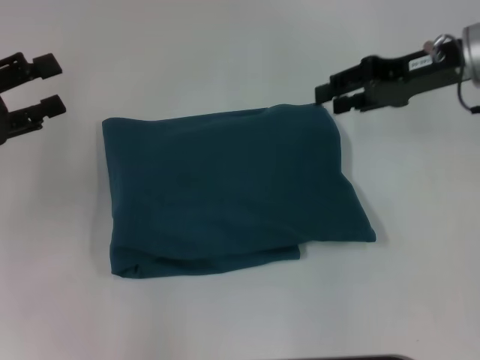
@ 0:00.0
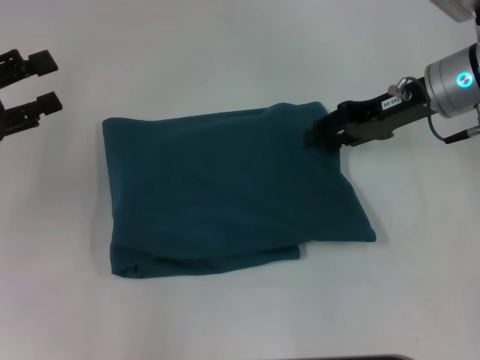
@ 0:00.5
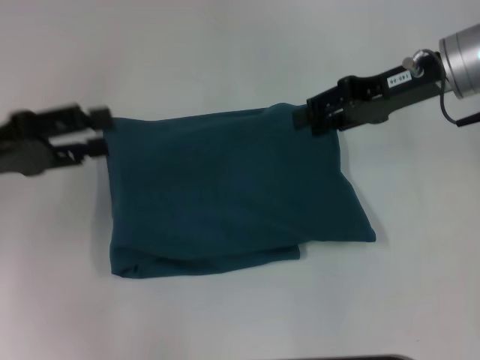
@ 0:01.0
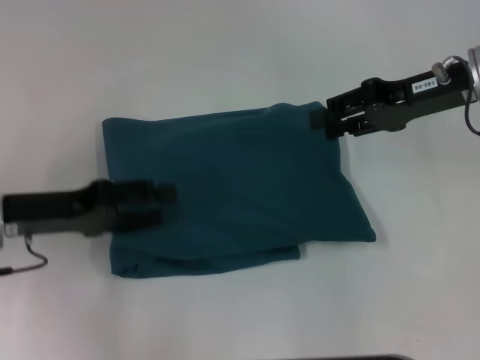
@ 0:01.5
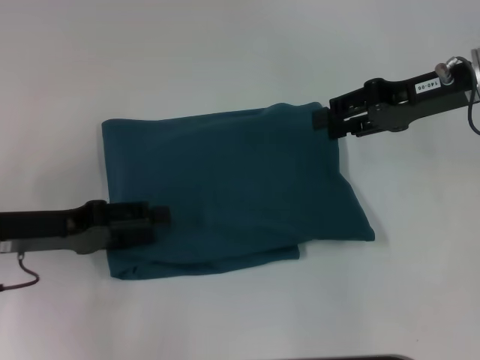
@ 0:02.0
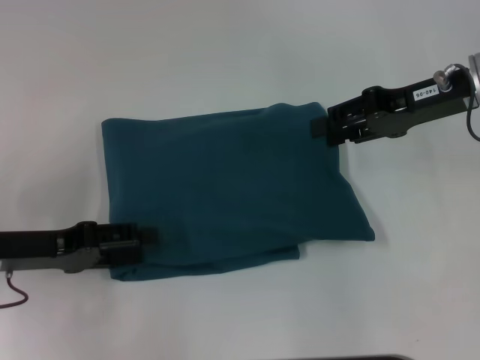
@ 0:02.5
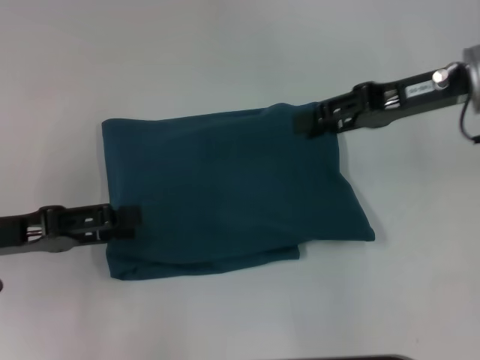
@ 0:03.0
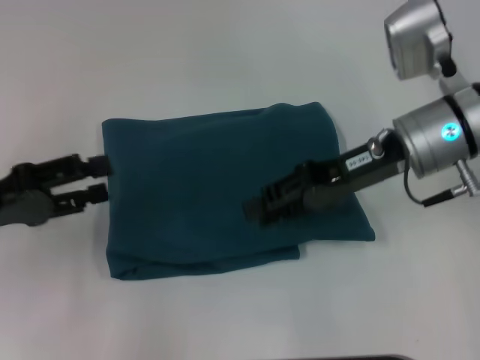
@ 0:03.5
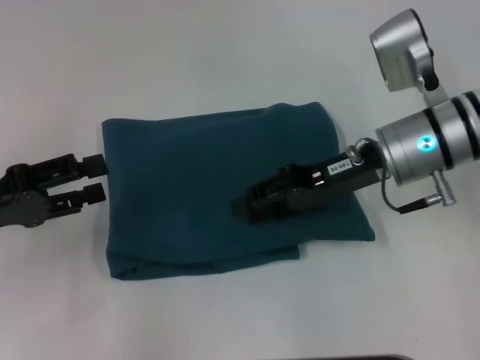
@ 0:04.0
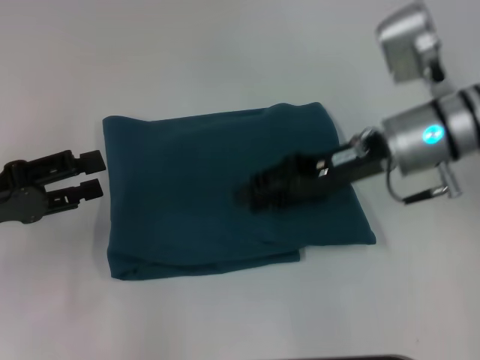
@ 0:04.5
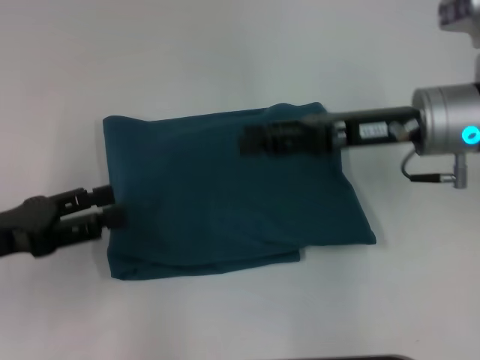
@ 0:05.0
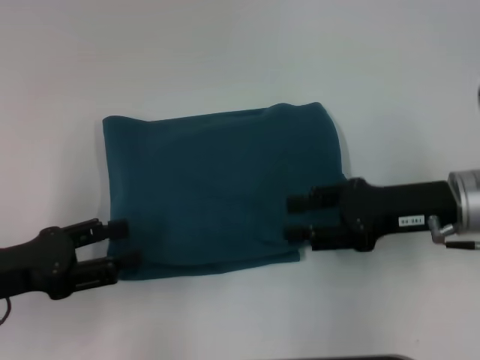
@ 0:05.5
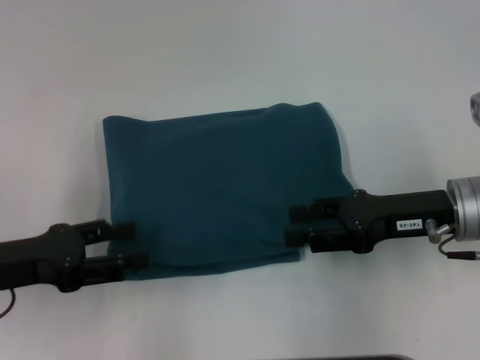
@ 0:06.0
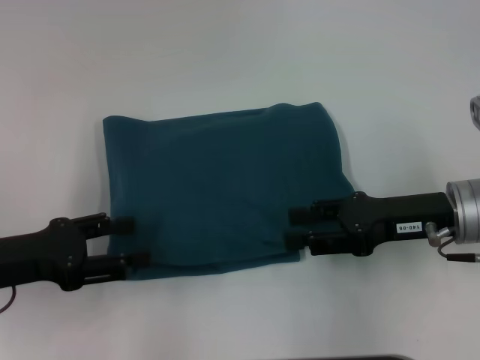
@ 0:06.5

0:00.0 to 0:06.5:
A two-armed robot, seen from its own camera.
0:00.0 to 0:02.0: The left gripper shifts some 10 cm to the right and downward.
0:02.0 to 0:04.5: The left gripper moves some 5 cm. Meanwhile the right gripper goes approximately 5 cm to the left.
0:04.5 to 0:06.5: The right gripper moves backward and to the right, some 10 cm.

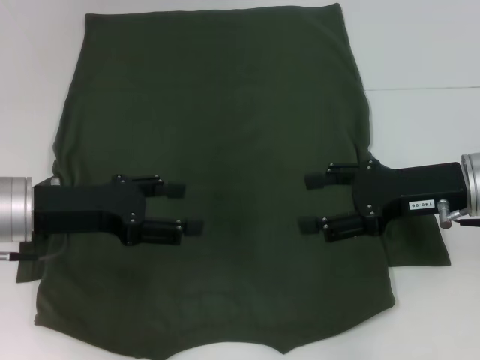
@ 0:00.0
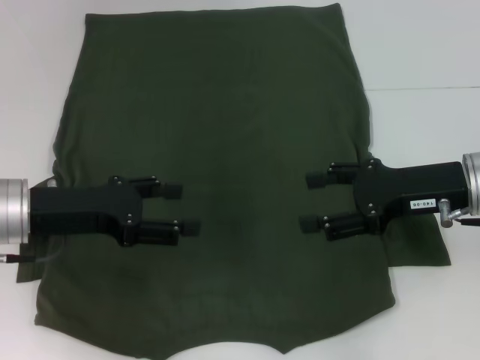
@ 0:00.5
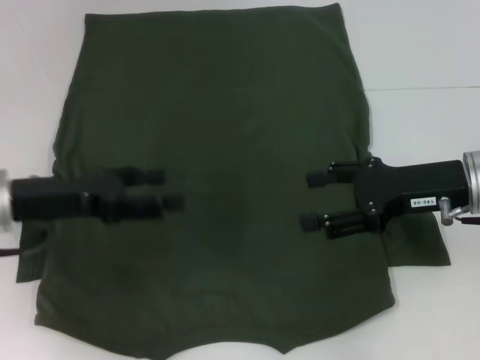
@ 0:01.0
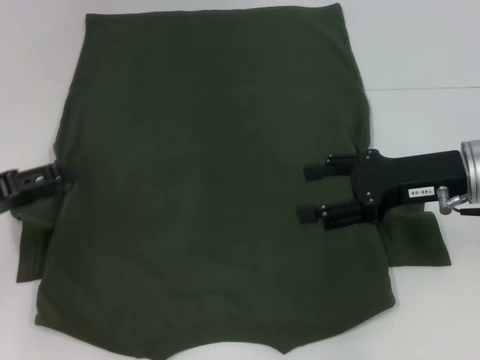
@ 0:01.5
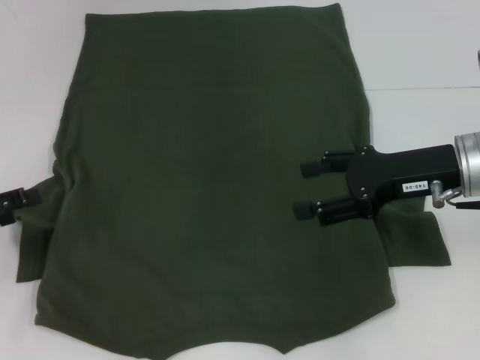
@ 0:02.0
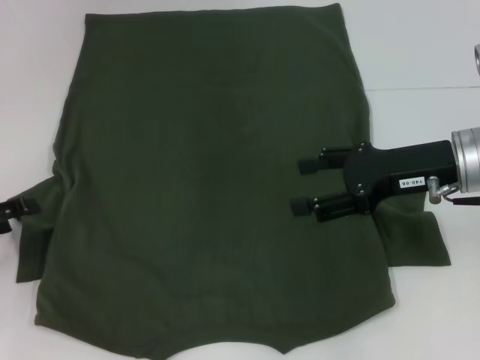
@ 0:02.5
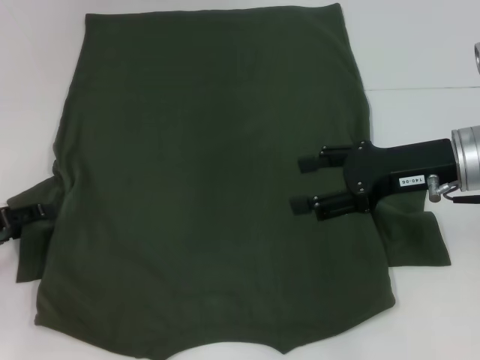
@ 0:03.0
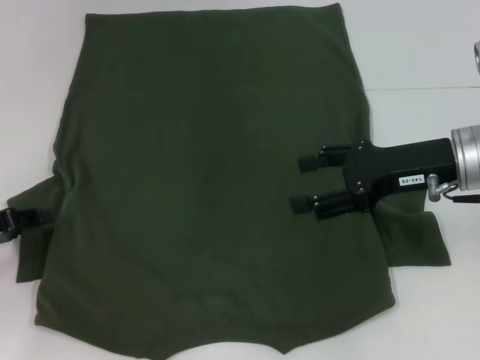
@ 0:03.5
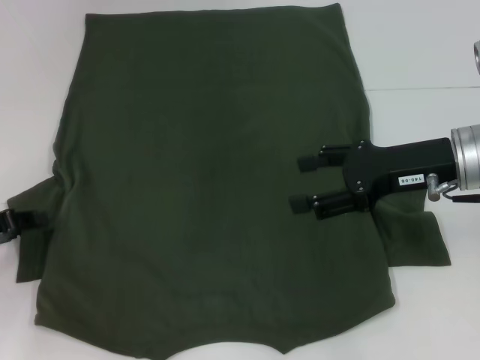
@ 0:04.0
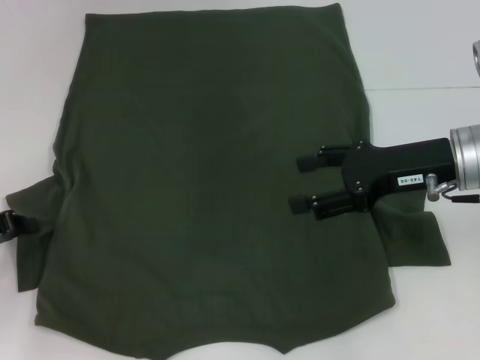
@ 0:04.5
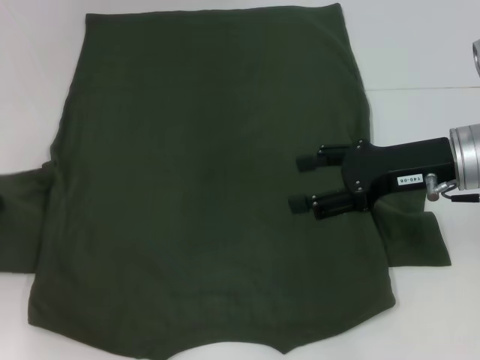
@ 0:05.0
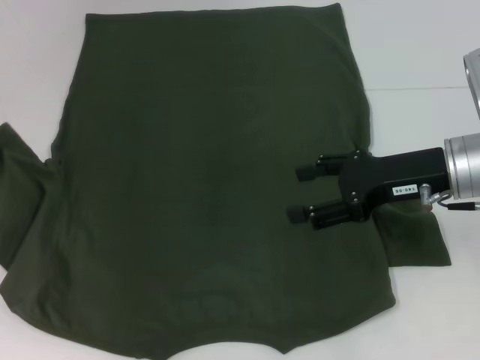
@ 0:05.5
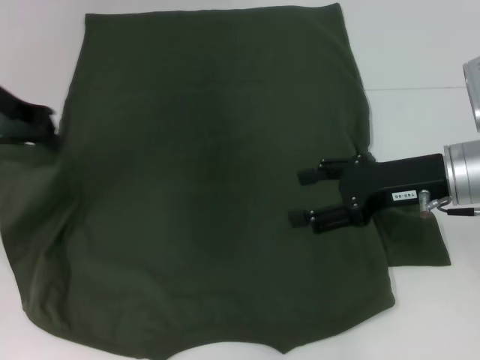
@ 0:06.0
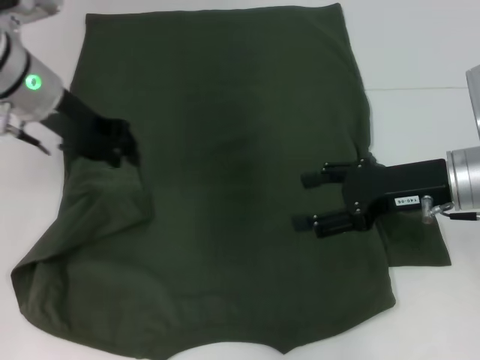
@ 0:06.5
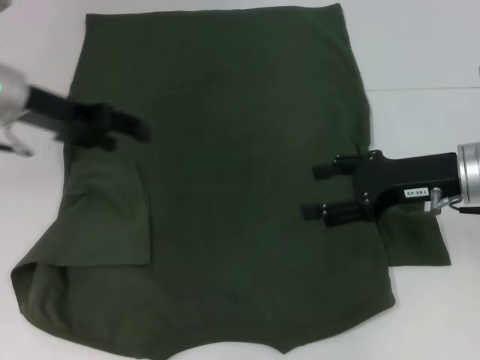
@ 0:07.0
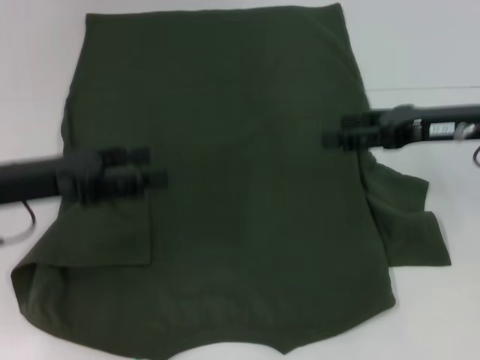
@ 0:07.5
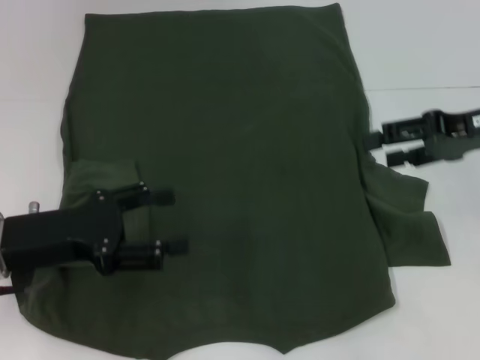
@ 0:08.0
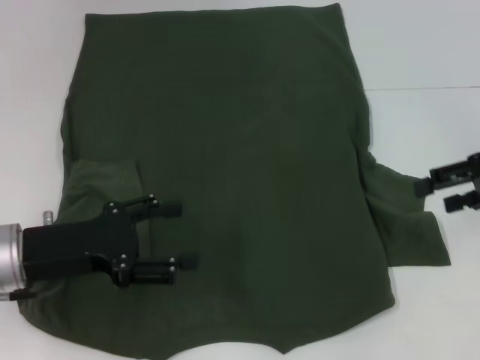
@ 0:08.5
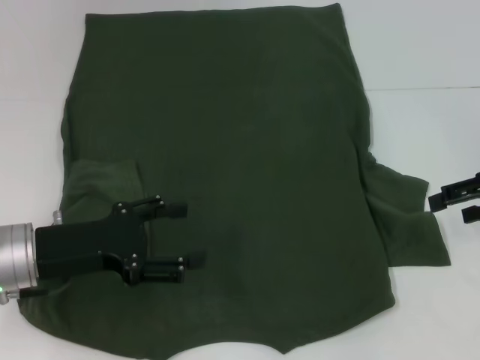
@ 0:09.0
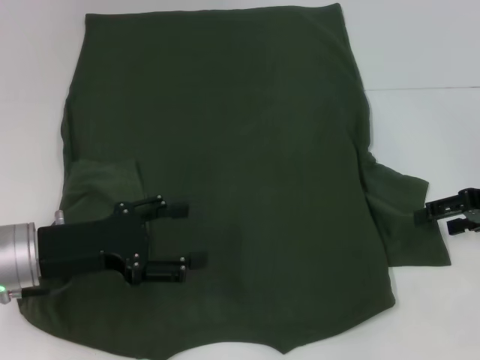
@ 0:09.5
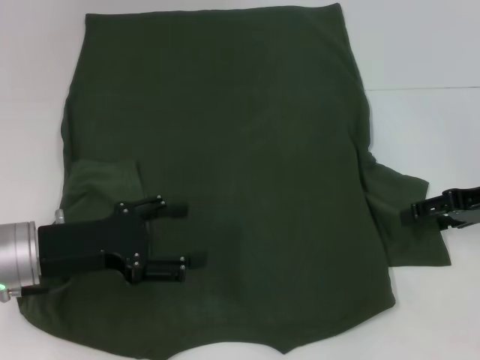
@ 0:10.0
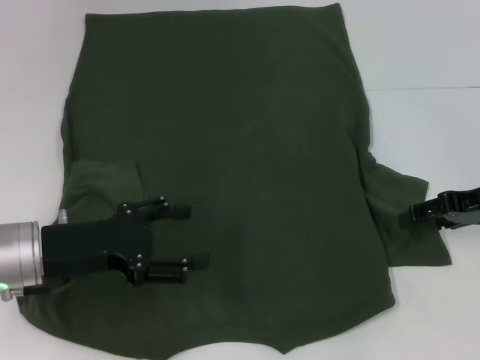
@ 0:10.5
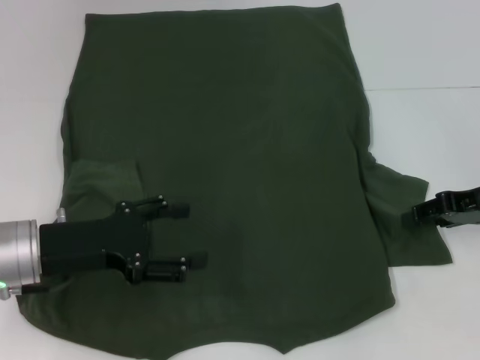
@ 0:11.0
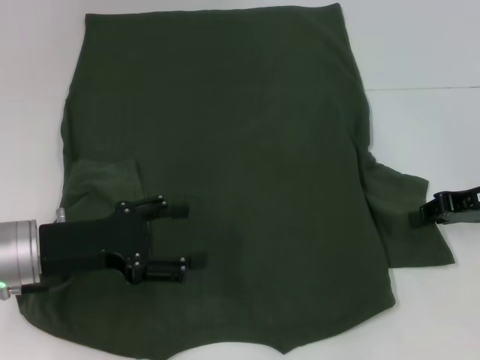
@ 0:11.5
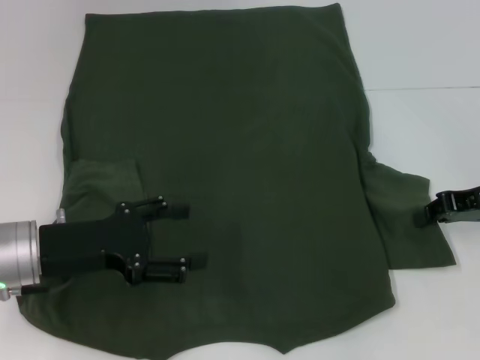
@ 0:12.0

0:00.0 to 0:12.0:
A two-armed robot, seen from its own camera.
Step, 0:00.0 to 0:06.5: Fold the bottom left sleeve with your left hand.
0:00.0 to 0:02.0: The left gripper moves to the left, approximately 15 cm.
0:02.0 to 0:04.0: The left gripper closes.
0:04.0 to 0:06.0: The left gripper heads upward, forward and to the right, covering about 20 cm, and closes its fingers.
0:06.0 to 0:08.0: The left gripper shifts approximately 20 cm backward and downward, and opens, while the right gripper is displaced to the right and upward by about 10 cm.
0:08.0 to 0:10.0: The right gripper shifts roughly 5 cm downward.
0:10.0 to 0:12.0: The right gripper closes its fingers.

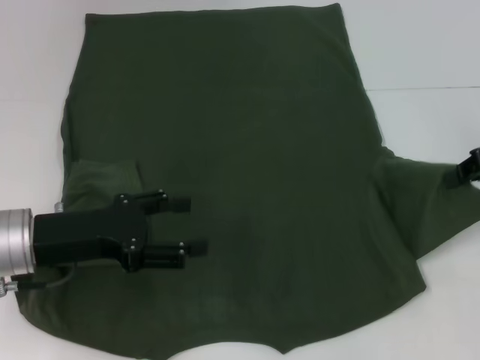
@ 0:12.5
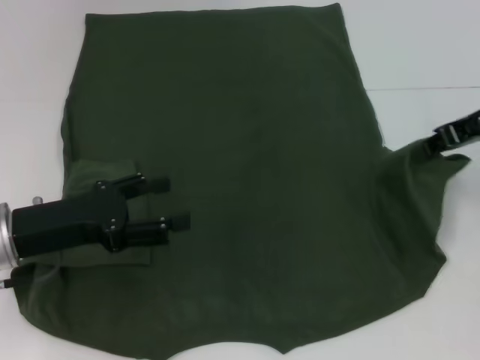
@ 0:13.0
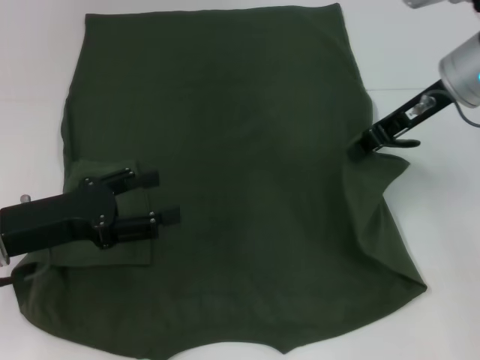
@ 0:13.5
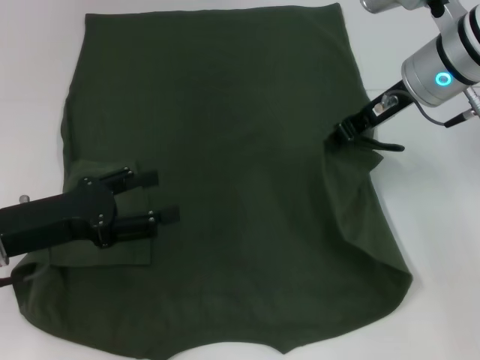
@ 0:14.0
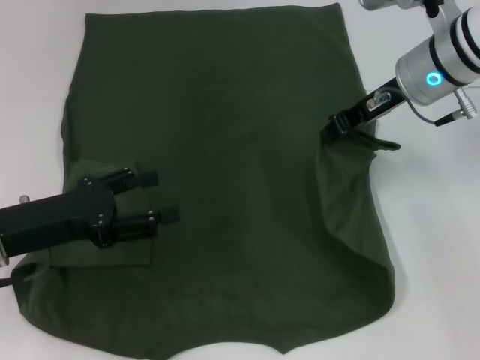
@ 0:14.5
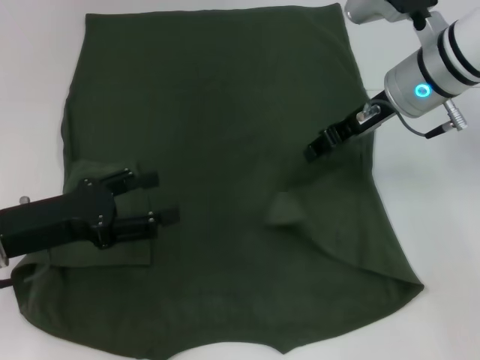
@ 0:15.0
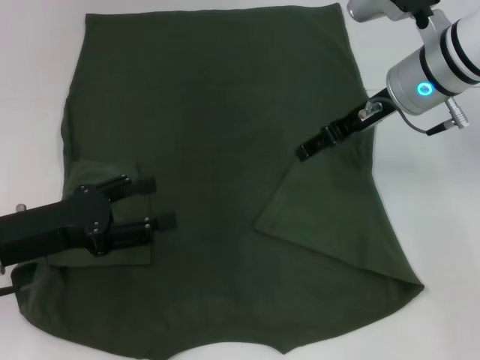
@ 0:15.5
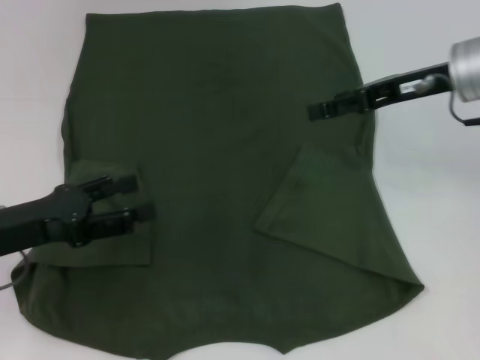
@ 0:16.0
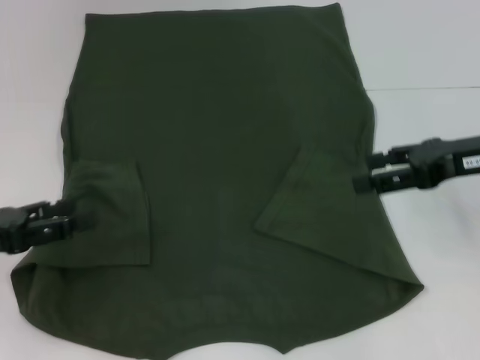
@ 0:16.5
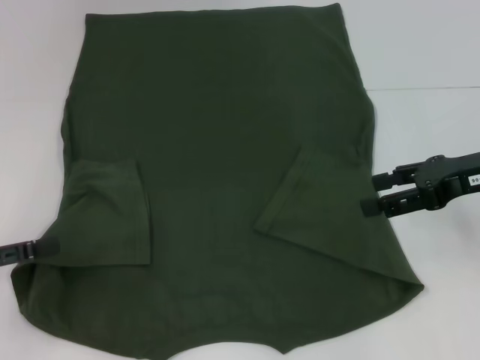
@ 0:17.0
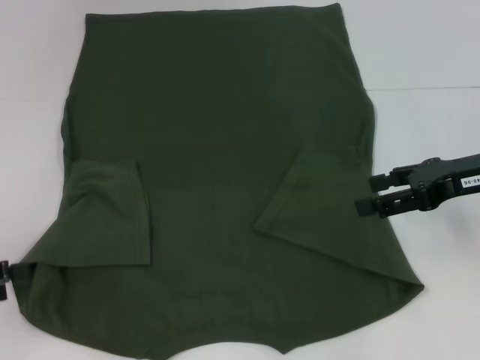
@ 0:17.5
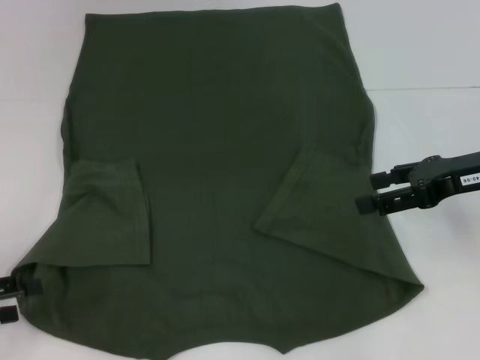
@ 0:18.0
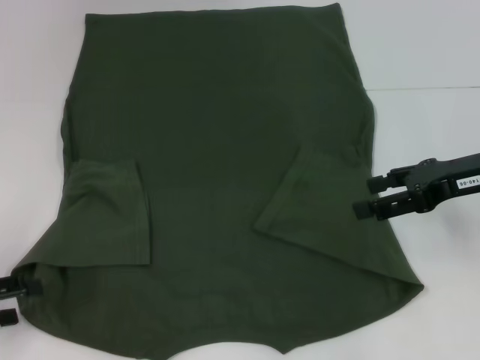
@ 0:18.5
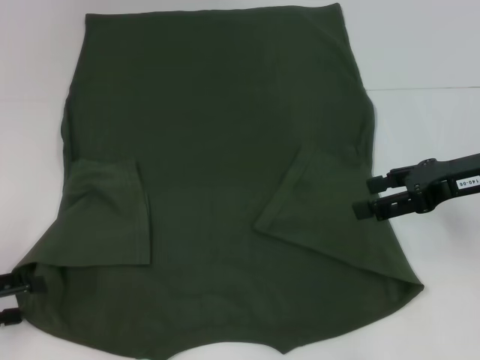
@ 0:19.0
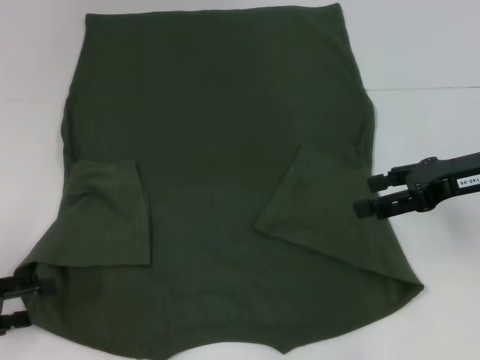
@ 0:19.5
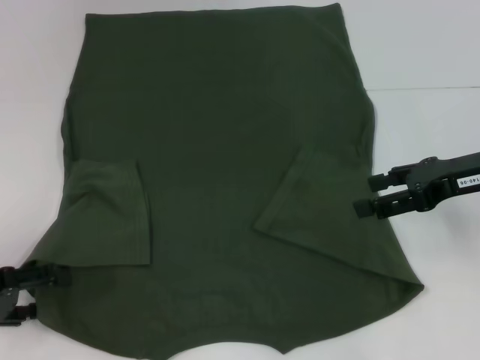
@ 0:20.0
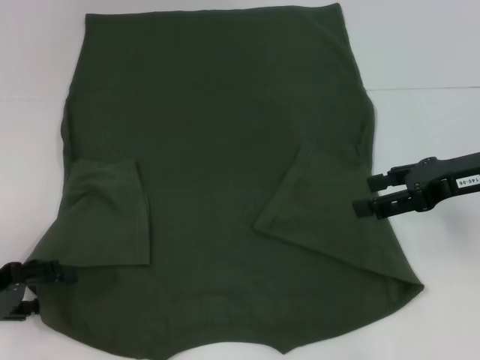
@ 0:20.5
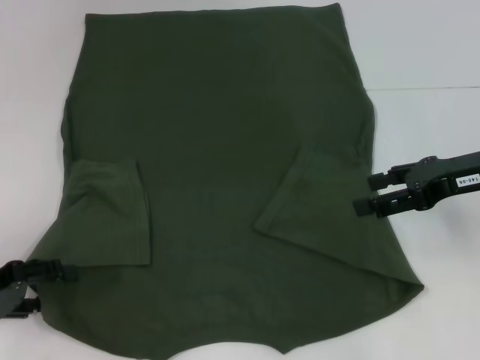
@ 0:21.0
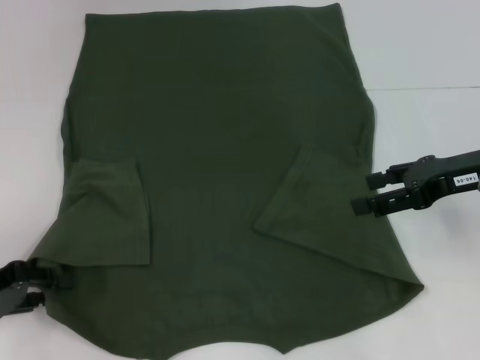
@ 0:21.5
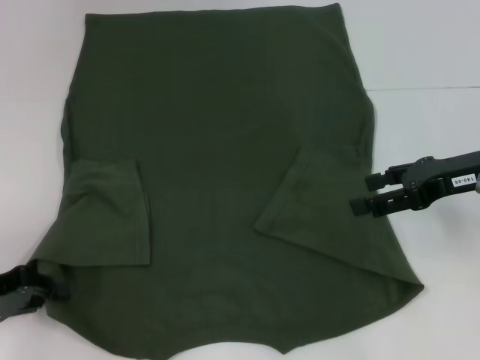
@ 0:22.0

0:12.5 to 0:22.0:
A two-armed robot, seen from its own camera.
Step, 0:12.5 to 0:15.0: Fold the bottom right sleeve with your right hand.
0:12.5 to 0:14.5: The right gripper heads to the left and forward, covering approximately 15 cm.
0:14.5 to 0:16.5: The left gripper is displaced to the left by roughly 5 cm; the right gripper travels to the right and backward by roughly 15 cm, and opens its fingers.
0:16.5 to 0:18.0: The left gripper changes place by roughly 5 cm.
0:18.0 to 0:20.0: There are only small adjustments of the grippers.
0:20.0 to 0:22.0: The left gripper closes its fingers.
